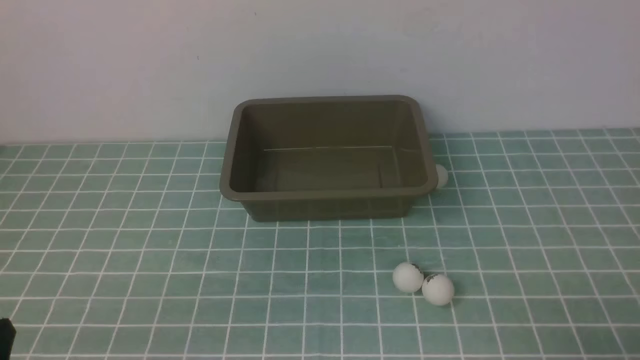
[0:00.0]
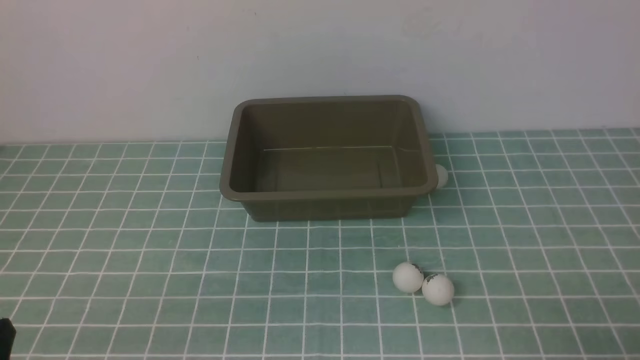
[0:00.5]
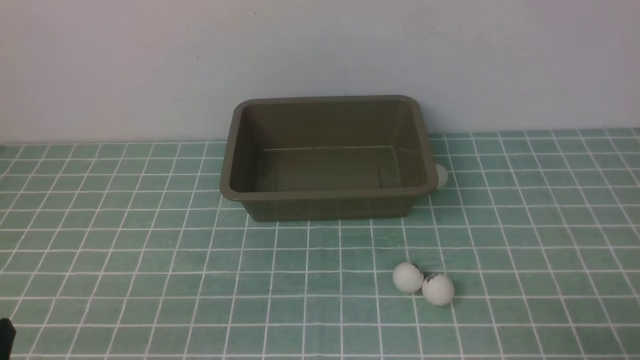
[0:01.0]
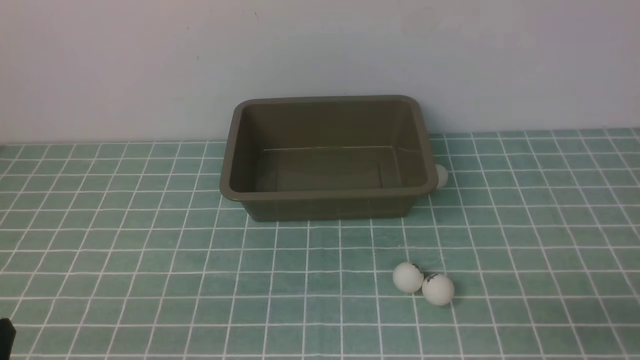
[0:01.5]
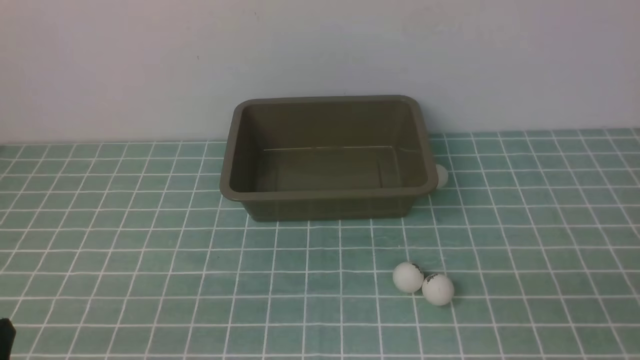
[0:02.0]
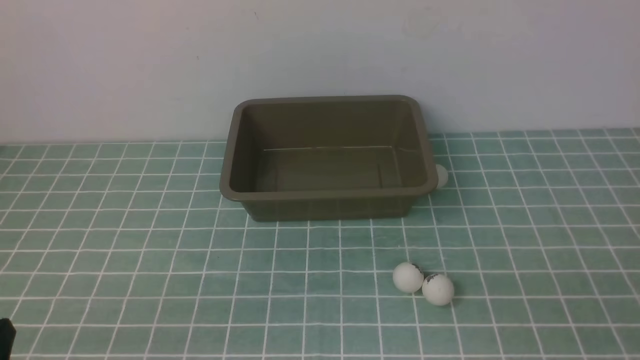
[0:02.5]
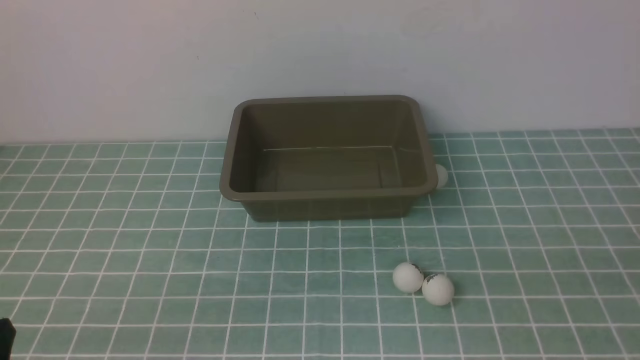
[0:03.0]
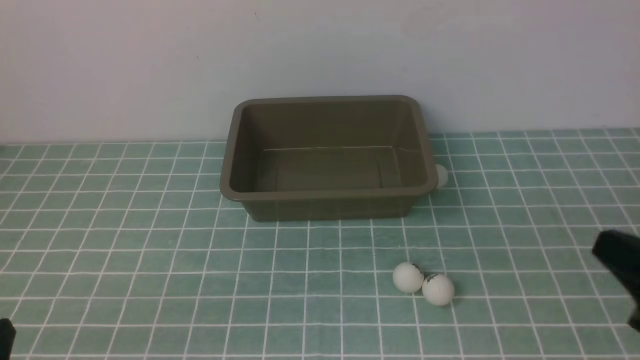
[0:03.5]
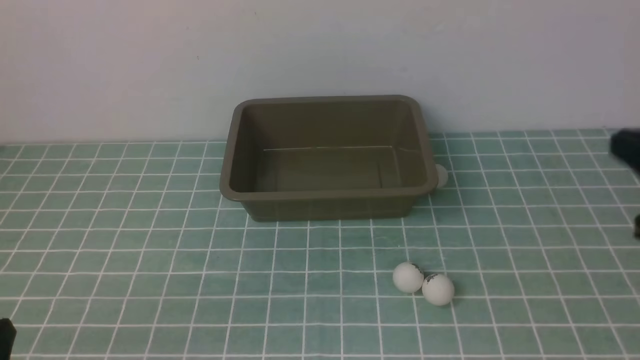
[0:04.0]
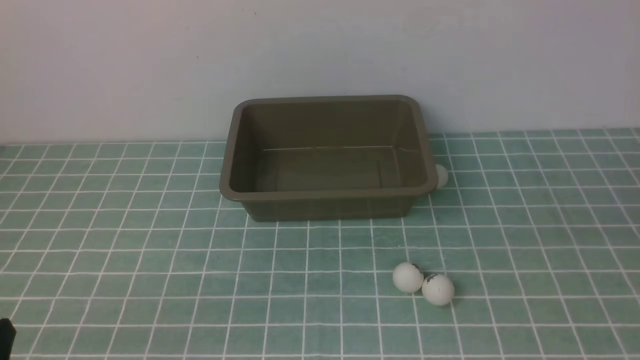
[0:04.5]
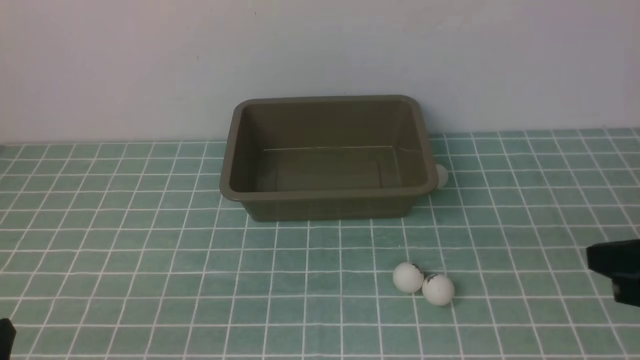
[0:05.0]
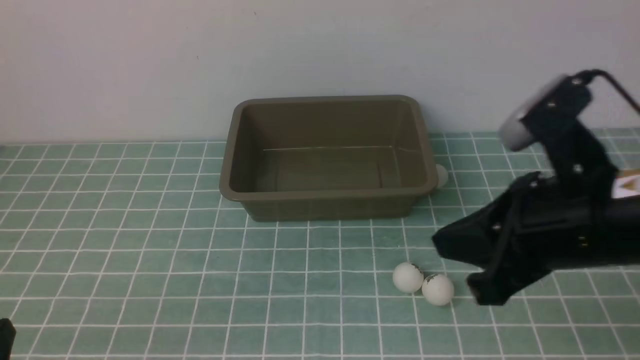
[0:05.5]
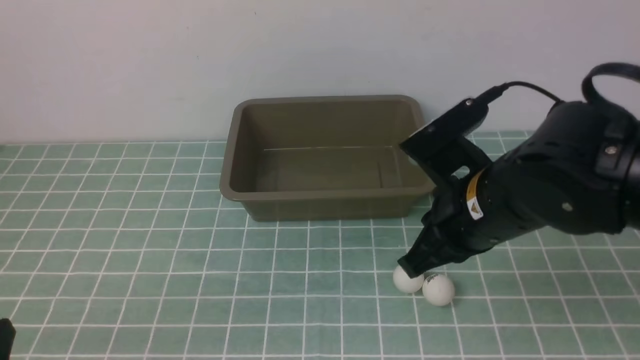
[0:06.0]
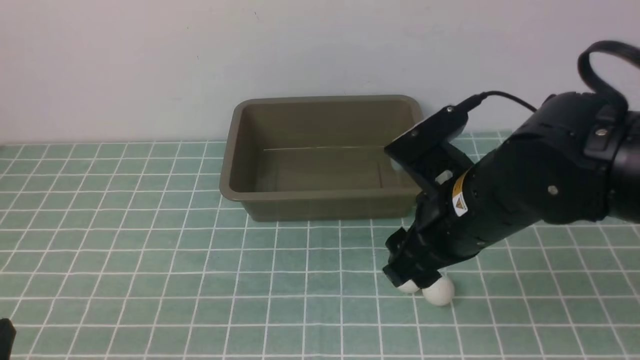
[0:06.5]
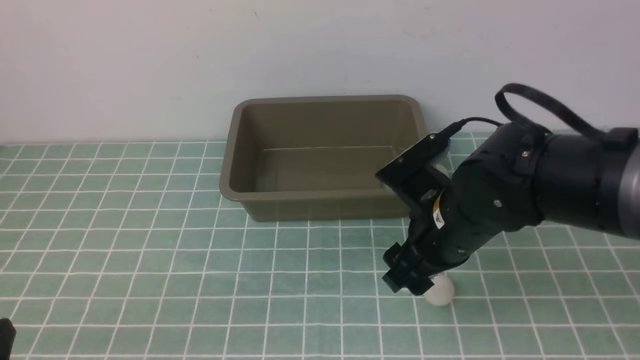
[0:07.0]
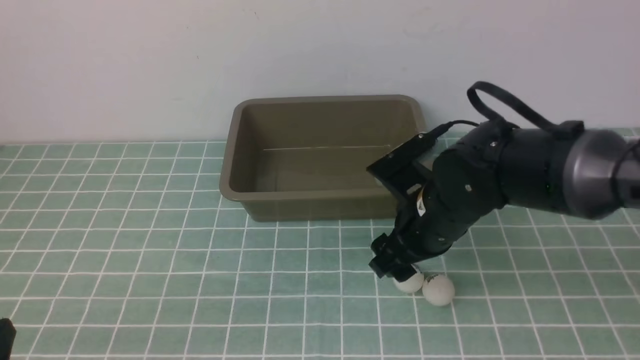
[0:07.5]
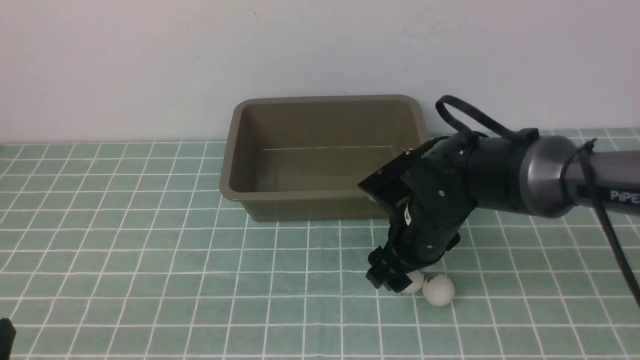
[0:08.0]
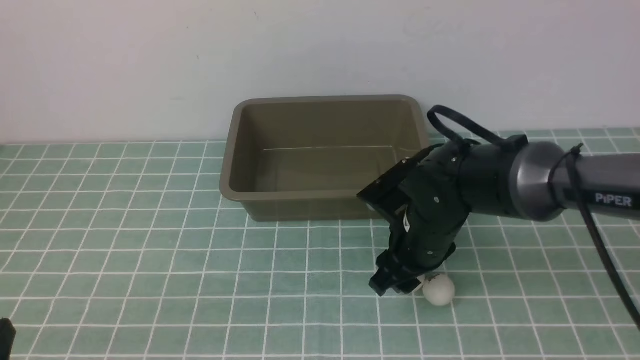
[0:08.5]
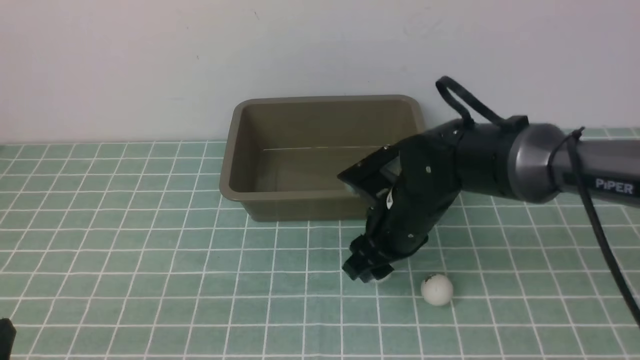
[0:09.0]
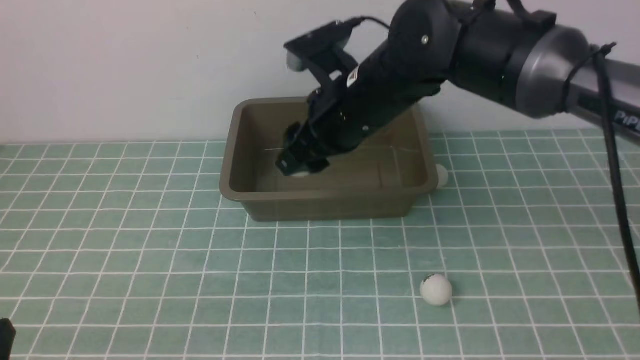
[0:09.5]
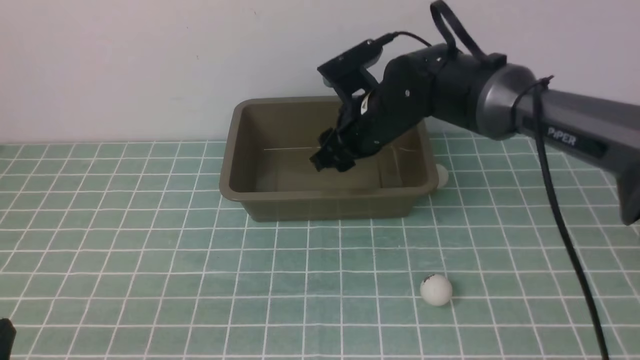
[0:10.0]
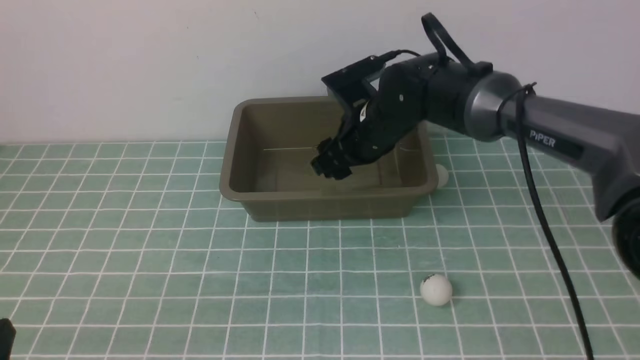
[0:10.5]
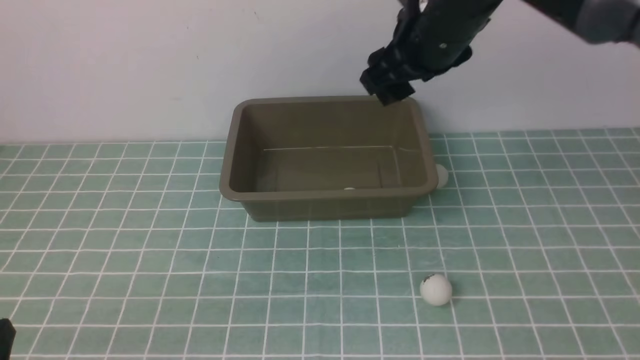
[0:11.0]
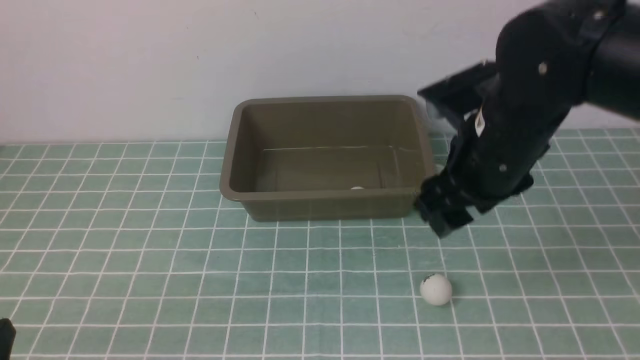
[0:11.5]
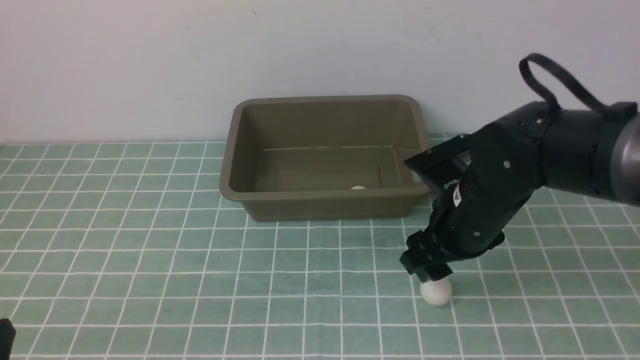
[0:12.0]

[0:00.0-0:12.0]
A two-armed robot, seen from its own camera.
Step, 0:00.0 to 0:09.0: use the right arm to clamp the table tennis ball closest to it.
Step, 0:09.5 to 0:10.5: use the right arm to put the table tennis ball into the box.
0:04.0 to 0:06.0: The right gripper shifts roughly 15 cm to the left.
0:06.0 to 0:08.0: The right gripper travels downward and forward by some 15 cm, and opens.
0:08.0 to 0:10.0: The right gripper is displaced forward and upward by approximately 10 cm.
0:10.0 to 0:12.0: The right gripper shifts about 15 cm backward and to the right, and moves about 15 cm upward and comes back.

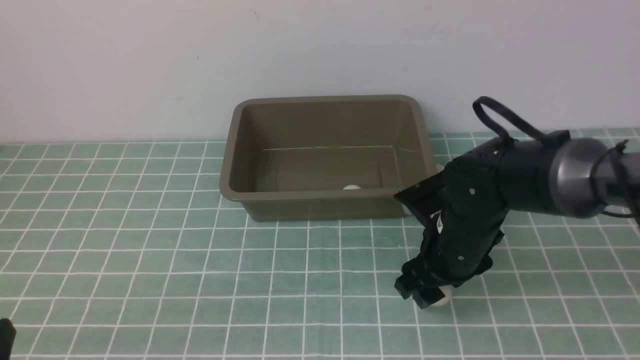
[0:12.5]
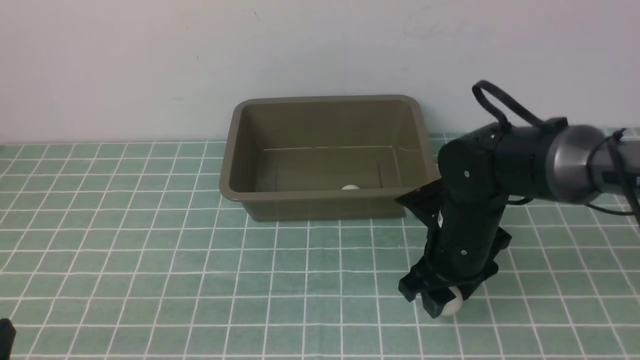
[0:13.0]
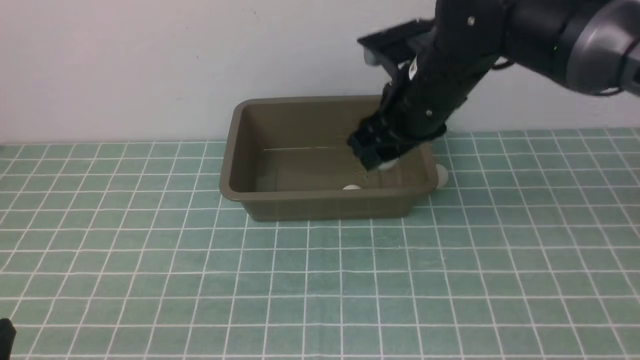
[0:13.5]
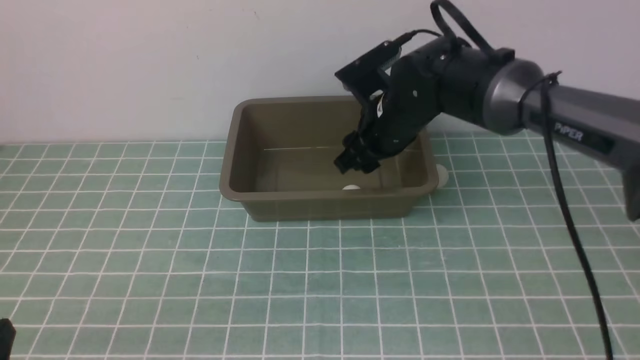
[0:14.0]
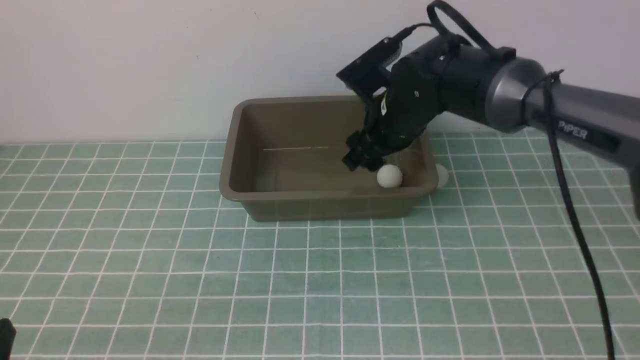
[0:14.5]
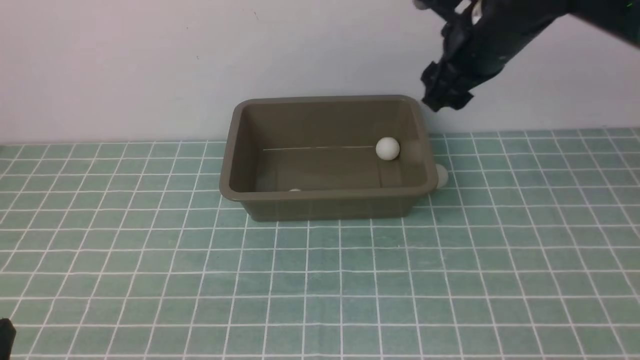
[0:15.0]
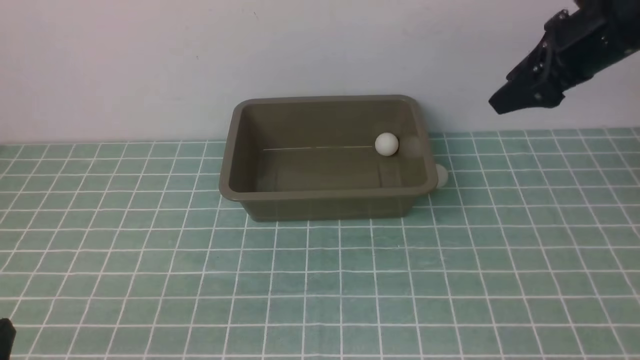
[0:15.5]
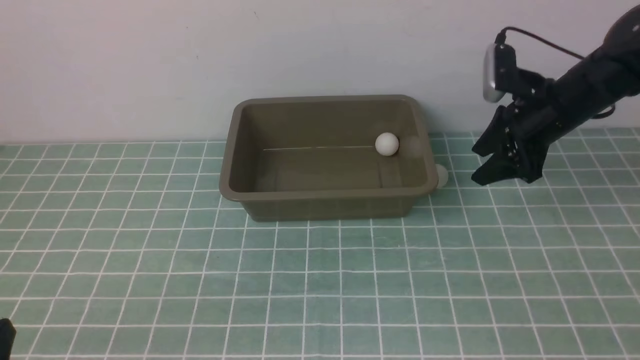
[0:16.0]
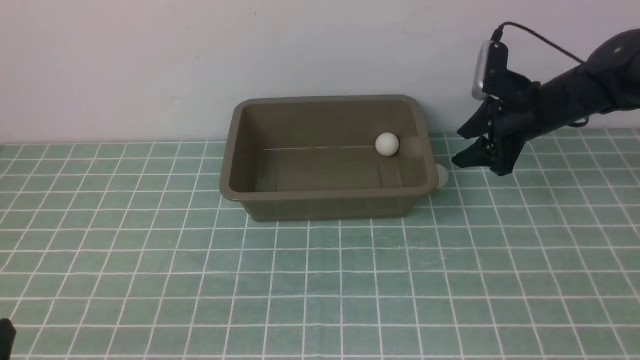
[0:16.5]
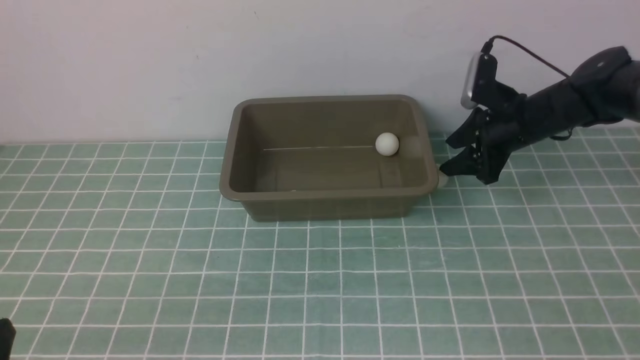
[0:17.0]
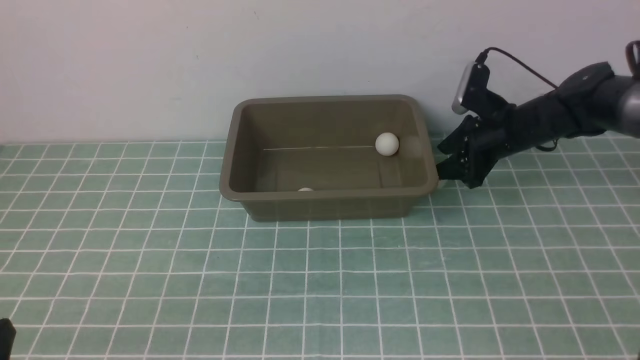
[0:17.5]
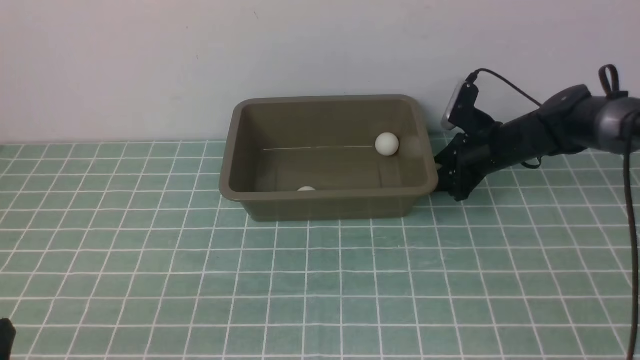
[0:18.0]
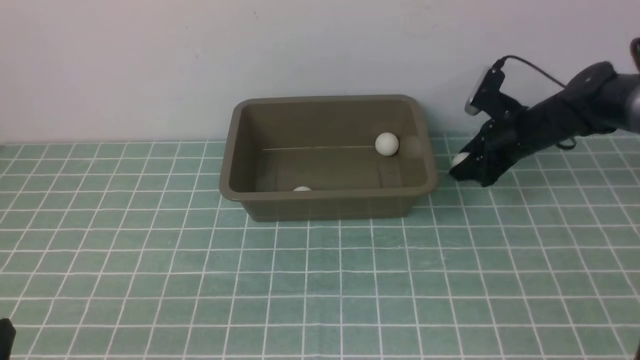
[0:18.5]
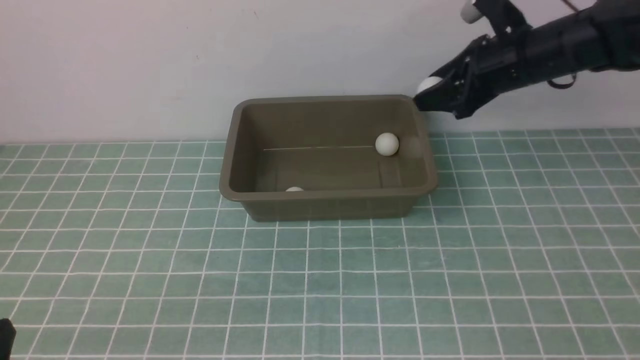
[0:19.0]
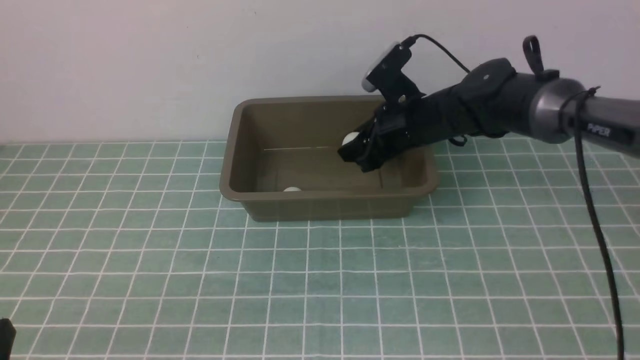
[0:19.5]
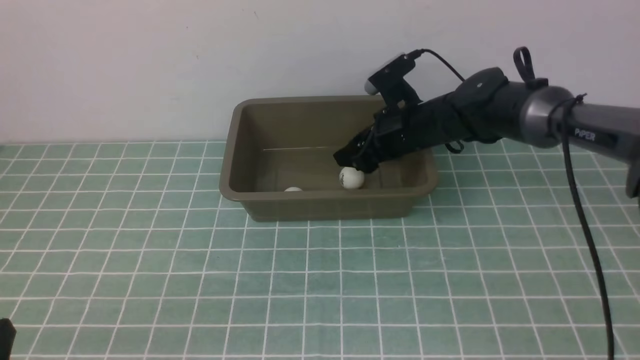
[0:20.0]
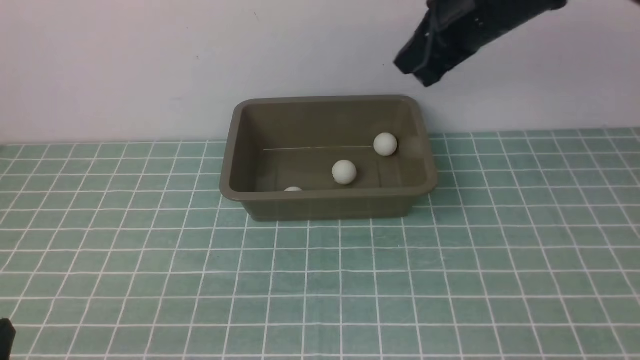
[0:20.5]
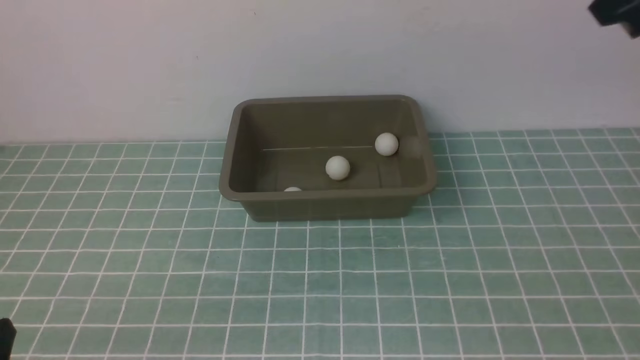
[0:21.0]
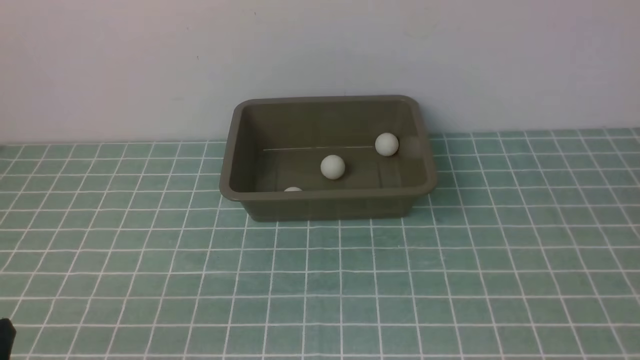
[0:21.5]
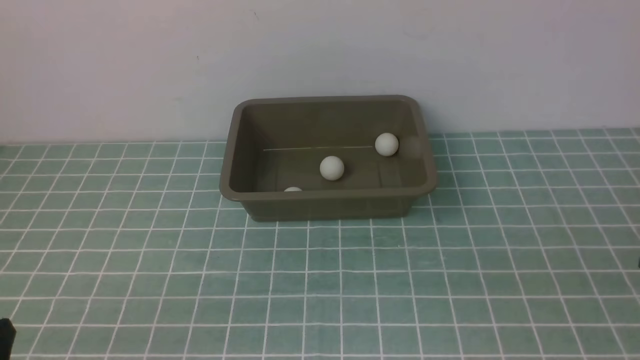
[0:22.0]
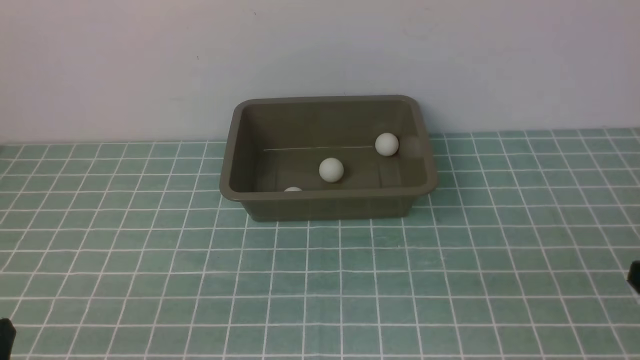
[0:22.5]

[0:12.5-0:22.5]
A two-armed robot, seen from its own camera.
Step, 0:13.5 to 0:14.0: use the right arm to put the table tennis ball into the box.
0:12.5 to 0:14.5: The right gripper goes up and down, approximately 15 cm each way, reversing 2 times.
0:14.5 to 0:16.5: The right gripper shifts approximately 20 cm to the right and downward.
0:18.5 to 0:20.5: The right gripper goes up and down, approximately 25 cm each way, reversing 2 times, and closes.
0:20.5 to 0:22.5: The right gripper goes approximately 30 cm backward and downward.
